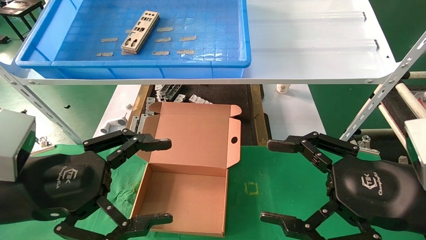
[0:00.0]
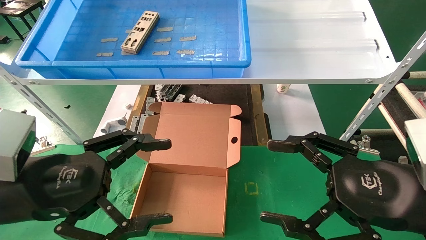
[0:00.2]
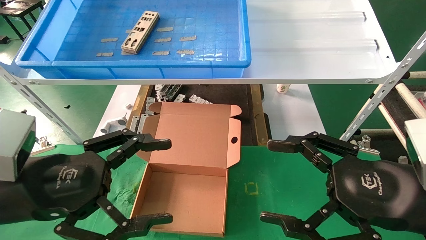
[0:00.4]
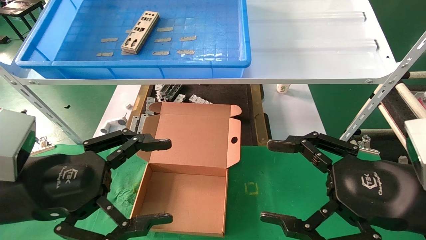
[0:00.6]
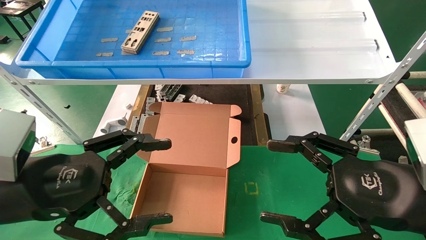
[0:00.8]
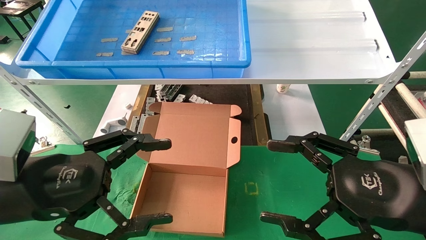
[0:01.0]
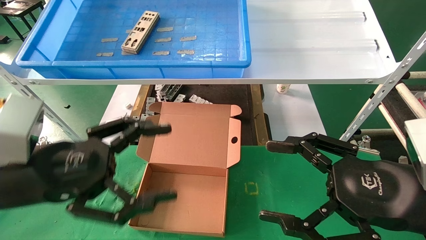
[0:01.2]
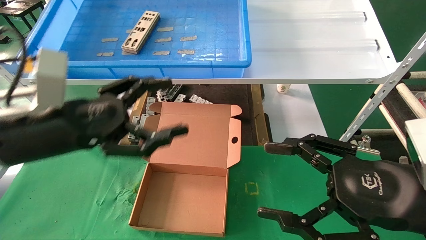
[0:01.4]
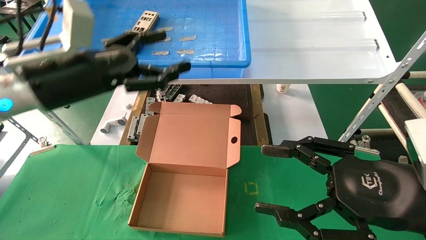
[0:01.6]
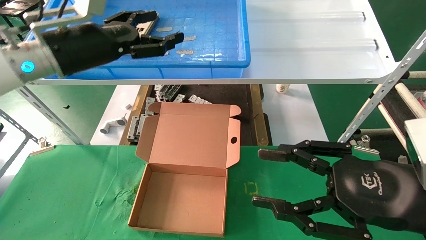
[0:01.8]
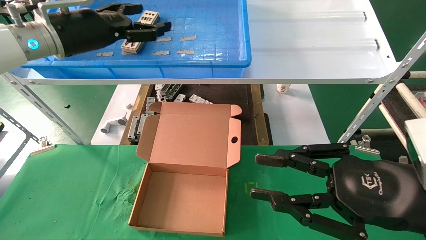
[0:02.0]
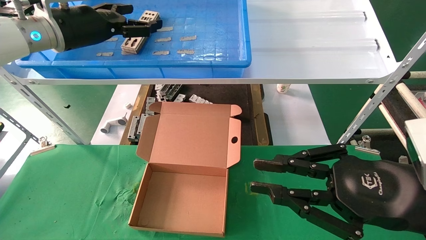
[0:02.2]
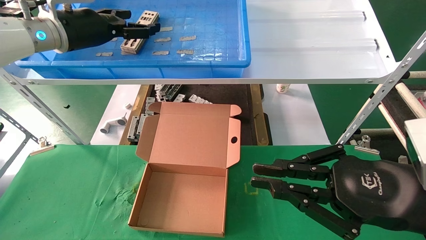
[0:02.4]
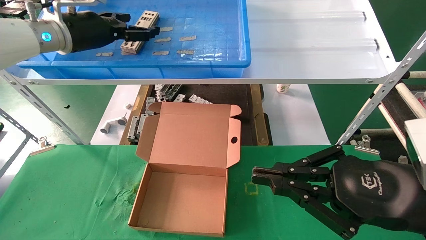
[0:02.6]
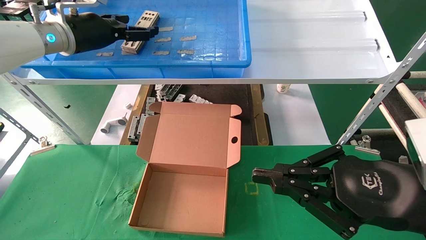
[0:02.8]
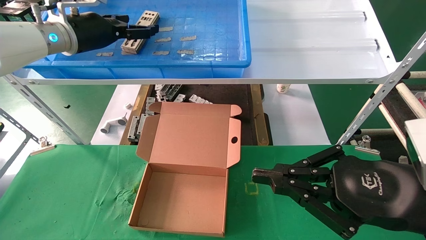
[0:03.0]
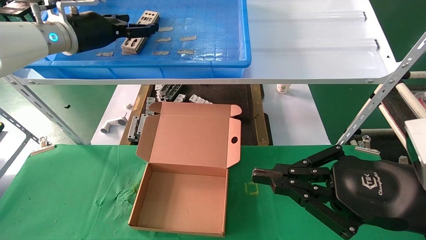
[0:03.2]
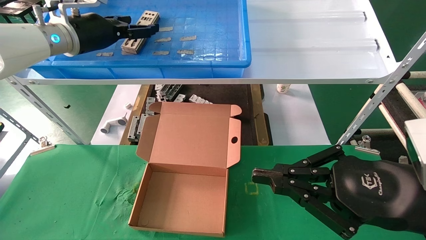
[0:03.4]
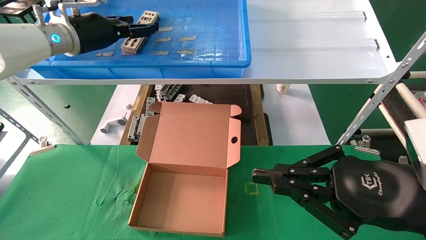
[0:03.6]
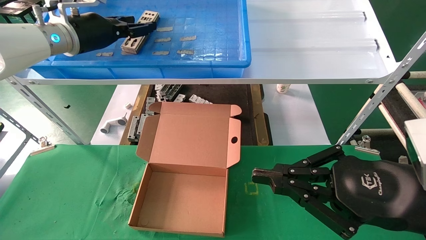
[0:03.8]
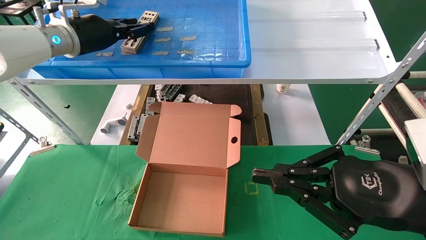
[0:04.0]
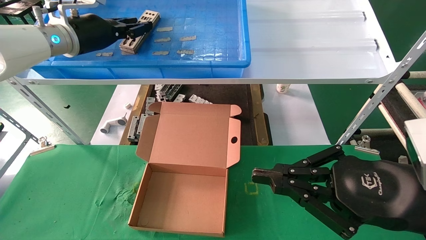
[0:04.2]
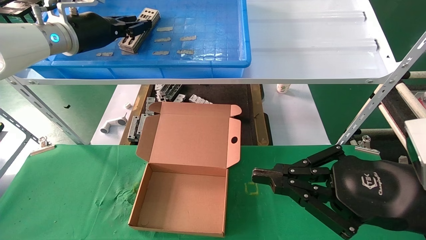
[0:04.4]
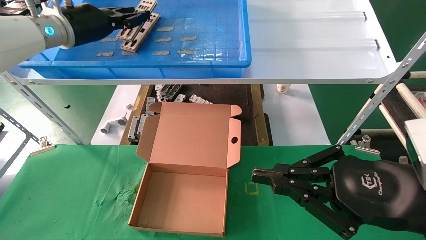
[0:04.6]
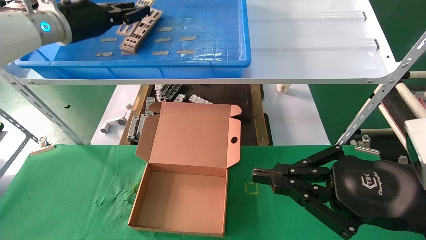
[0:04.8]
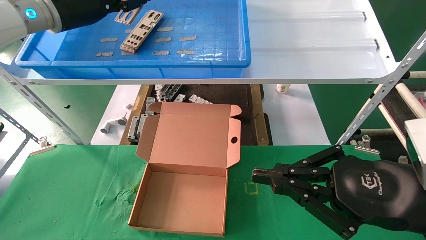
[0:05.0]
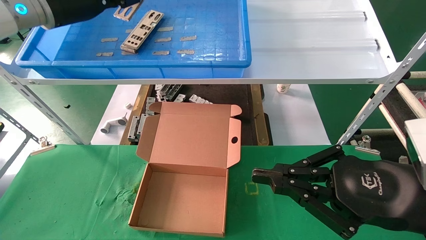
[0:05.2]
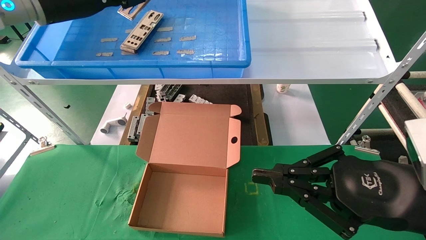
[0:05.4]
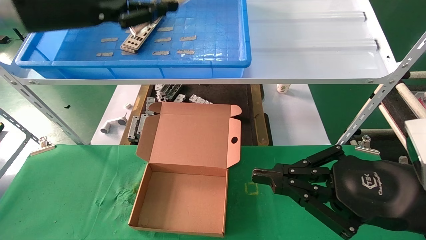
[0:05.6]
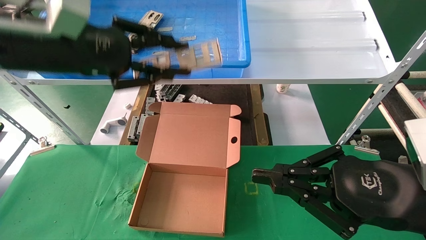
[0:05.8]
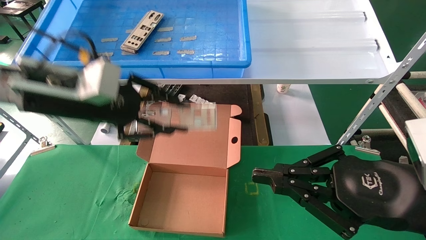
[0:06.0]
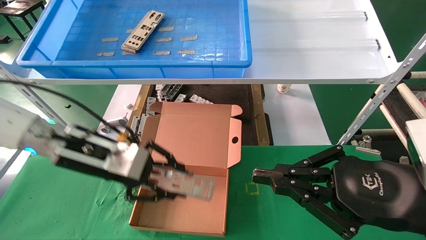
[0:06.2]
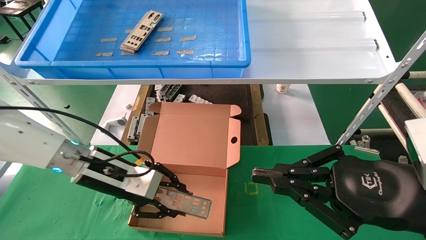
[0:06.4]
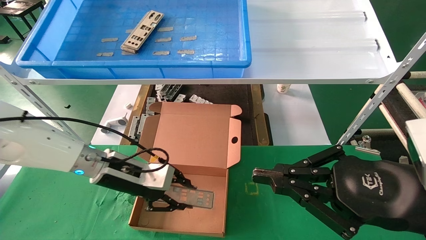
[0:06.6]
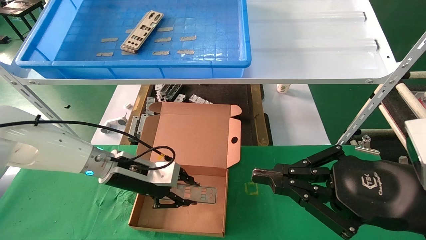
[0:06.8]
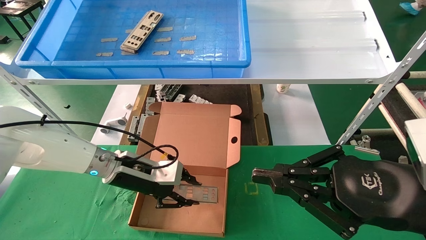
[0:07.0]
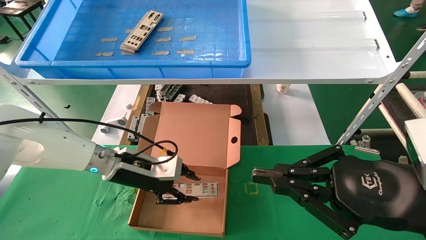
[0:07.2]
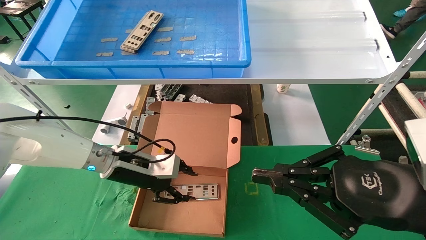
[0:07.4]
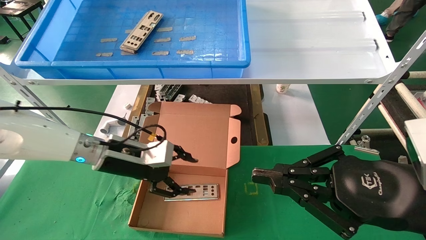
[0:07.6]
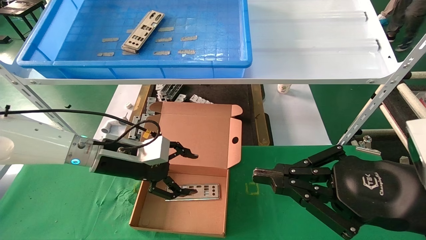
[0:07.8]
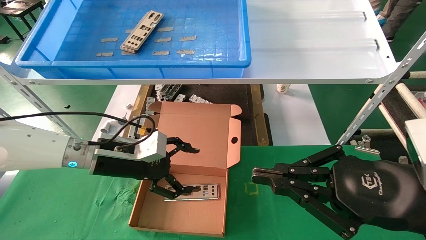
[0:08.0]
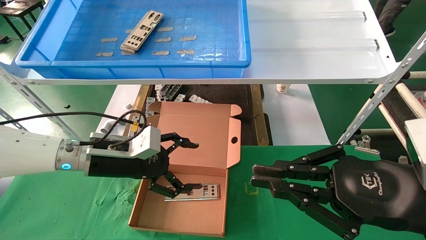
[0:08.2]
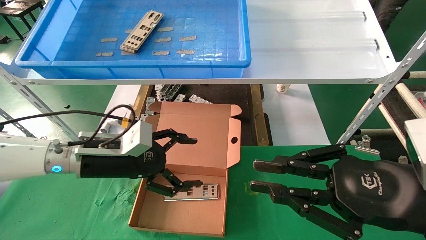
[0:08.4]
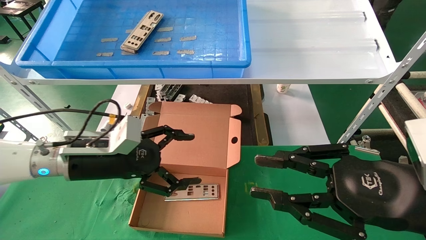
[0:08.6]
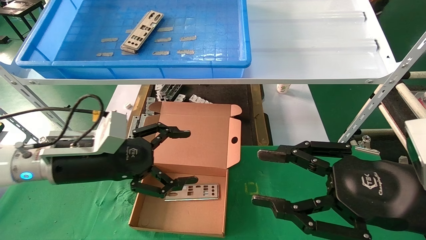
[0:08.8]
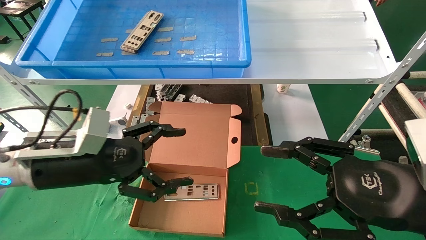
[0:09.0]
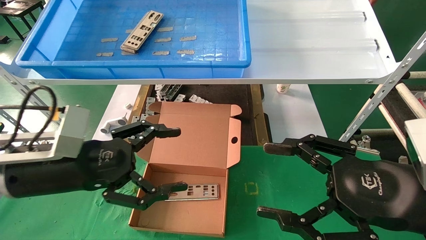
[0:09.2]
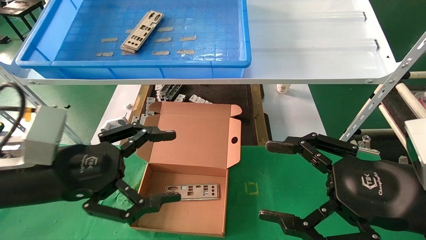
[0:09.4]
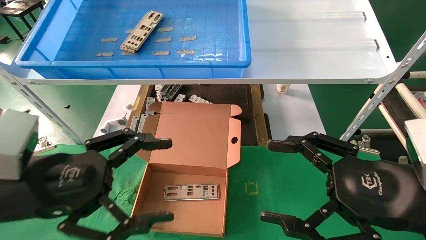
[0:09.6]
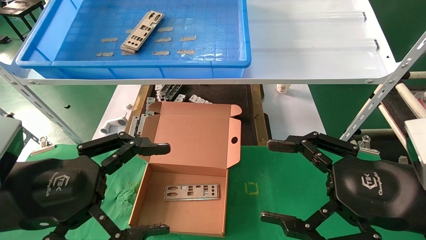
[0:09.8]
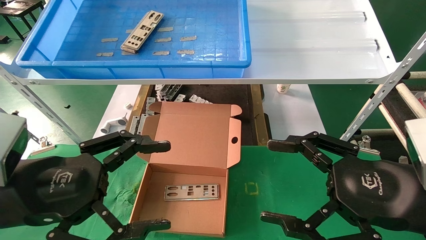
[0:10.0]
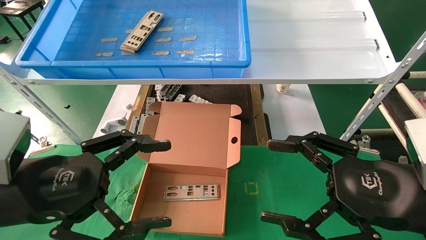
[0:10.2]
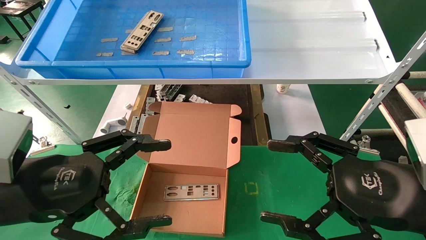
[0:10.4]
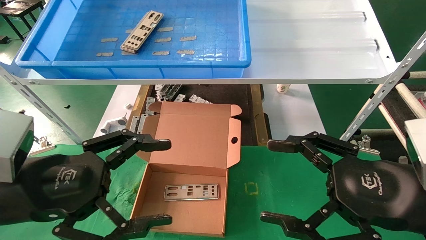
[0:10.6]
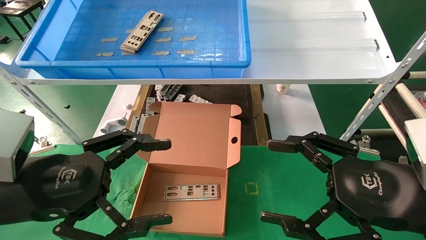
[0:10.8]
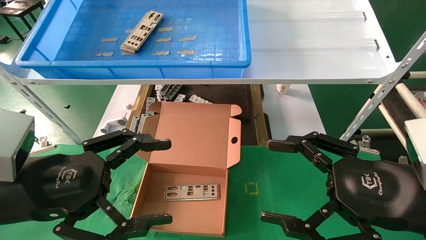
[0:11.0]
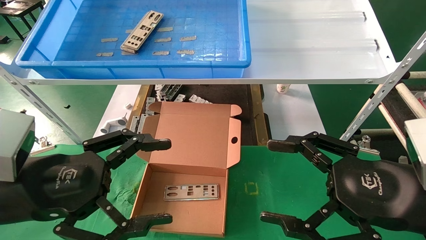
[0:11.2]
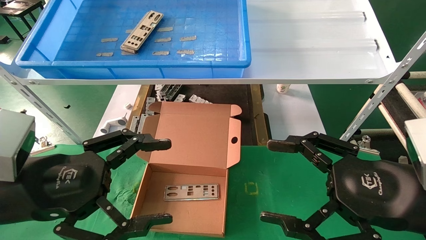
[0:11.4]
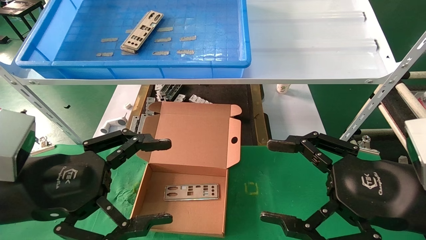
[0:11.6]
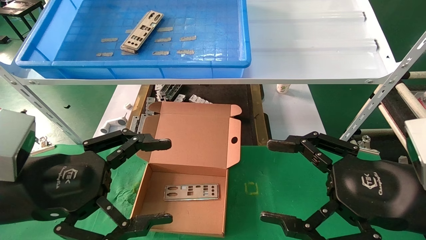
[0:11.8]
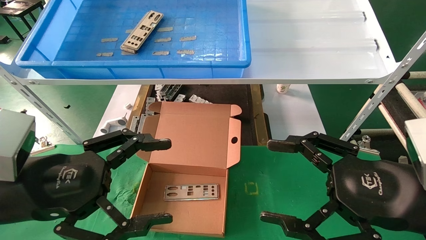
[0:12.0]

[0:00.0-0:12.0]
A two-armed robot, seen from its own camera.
Task of the whole recording: pick up the parts on the tray and put them in the cardboard box.
Step, 0:01.4 to 0:04.6: Pick up the IO bracket from the container box.
Step, 0:04.8 to 0:07.4: Place the IO bracket into the ingredient slot.
0:00.0 to 0:01.6: The left gripper travels forward and upward by approximately 15 cm.
0:01.6 to 0:03.0: The left gripper goes some 15 cm forward and upward. The right gripper closes its fingers.
0:03.0 to 0:04.4: The left gripper closes.
0:04.4 to 0:06.0: The left gripper goes some 15 cm backward and downward.
0:06.0 to 0:07.6: The left gripper goes roughly 15 cm downward and forward, and opens up.
0:07.6 to 0:09.0: The left gripper heads backward, covering some 10 cm, and opens its fingers. Meanwhile the right gripper opens up.
0:09.0 to 0:10.4: The left gripper goes approximately 10 cm backward. The right gripper opens.
0:10.4 to 0:12.0: Both grippers stay put.

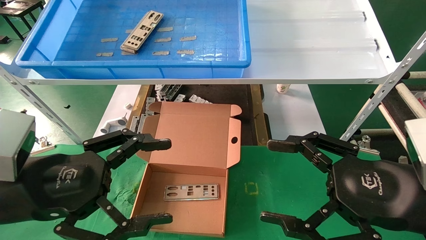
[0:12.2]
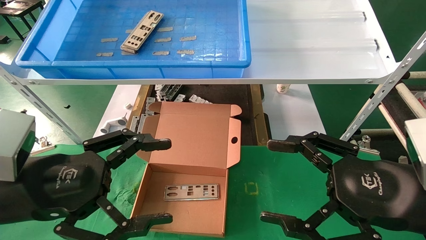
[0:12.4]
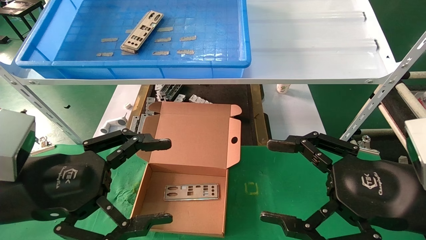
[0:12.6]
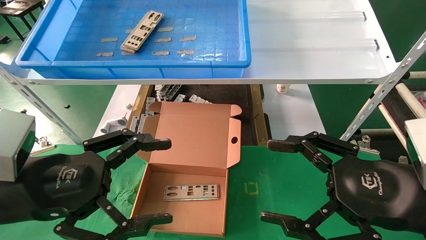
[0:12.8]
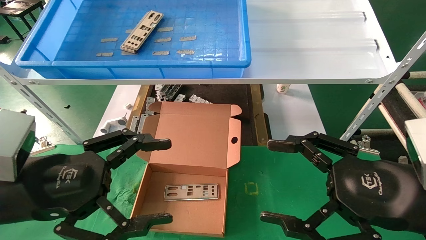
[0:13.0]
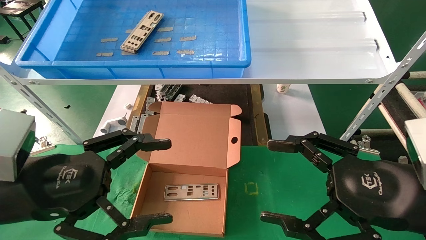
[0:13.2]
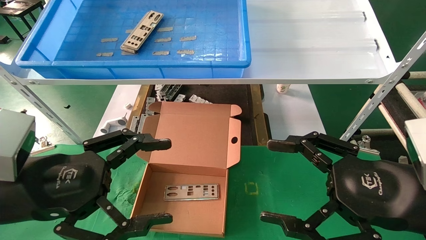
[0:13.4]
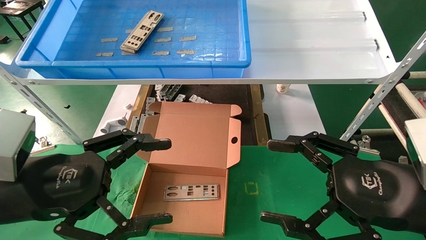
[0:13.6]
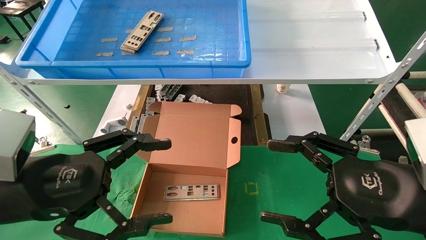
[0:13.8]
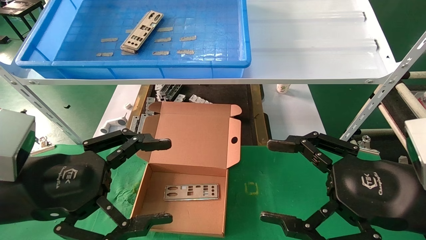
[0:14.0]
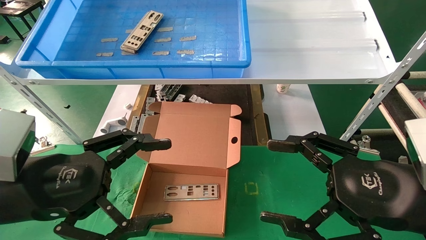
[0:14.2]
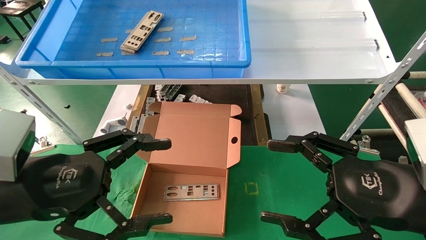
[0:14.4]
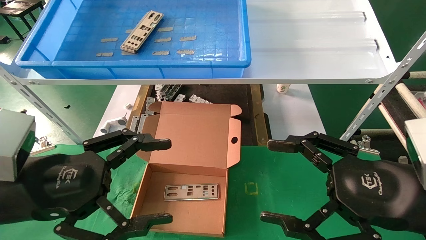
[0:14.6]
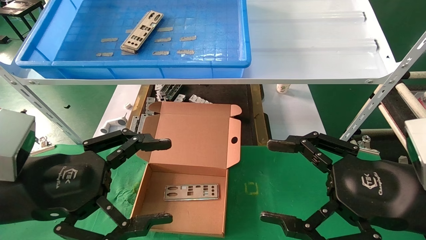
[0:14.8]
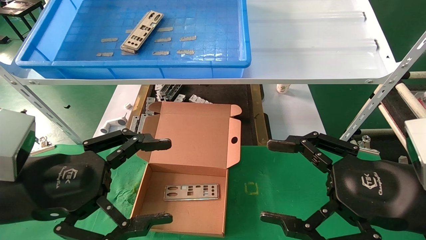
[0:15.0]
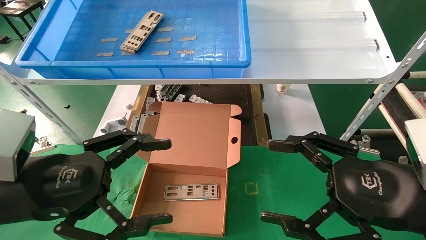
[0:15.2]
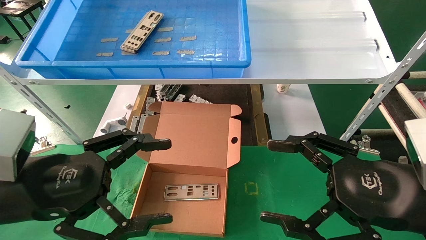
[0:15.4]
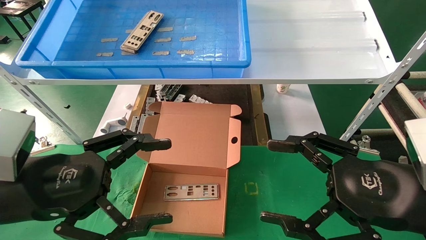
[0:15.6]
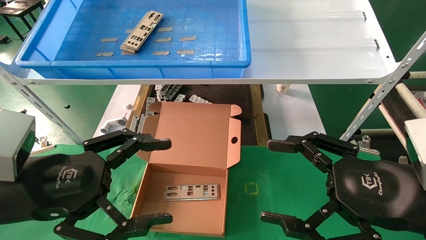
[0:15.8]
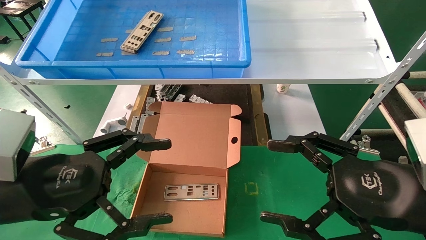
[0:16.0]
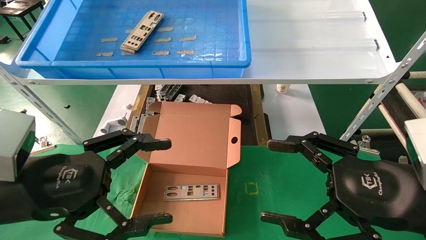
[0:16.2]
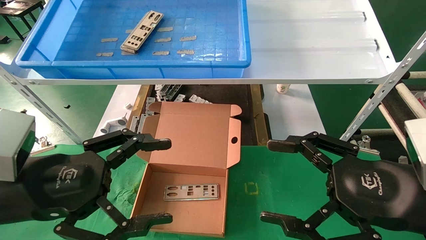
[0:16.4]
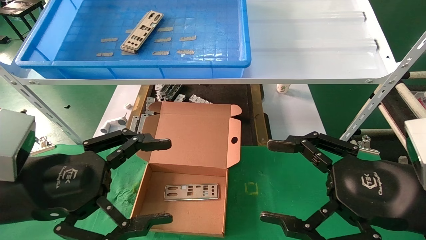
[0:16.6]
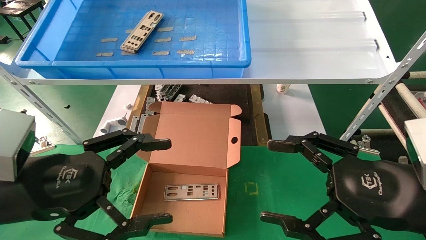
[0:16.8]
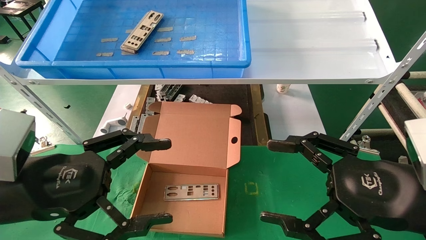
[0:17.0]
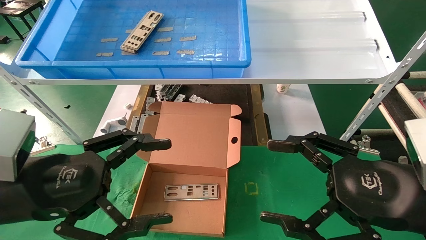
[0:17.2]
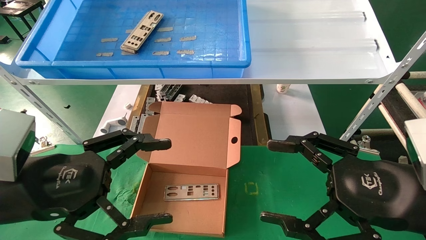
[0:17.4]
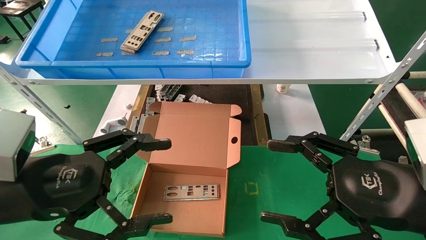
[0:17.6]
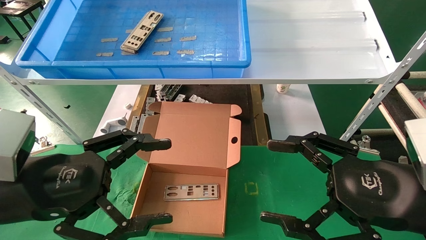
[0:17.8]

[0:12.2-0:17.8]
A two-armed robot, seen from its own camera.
Task of the whole recording: pick up the parts on the tray and put them in the cardboard box.
0:12.2 to 0:17.8: The two grippers keep their place.
